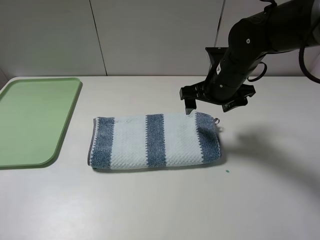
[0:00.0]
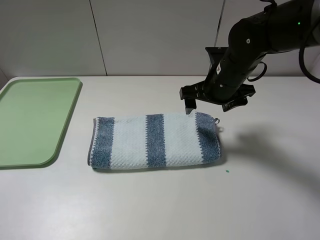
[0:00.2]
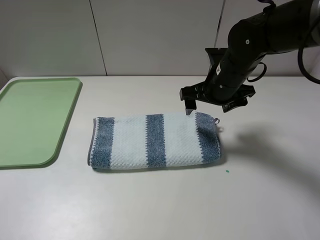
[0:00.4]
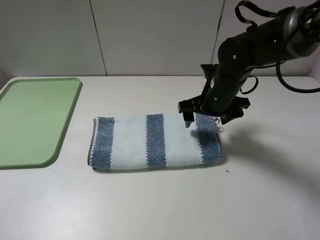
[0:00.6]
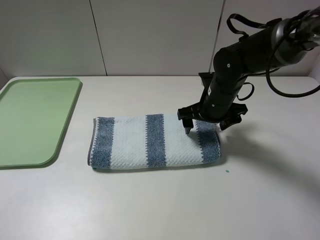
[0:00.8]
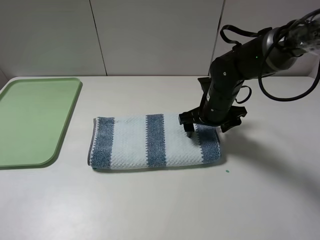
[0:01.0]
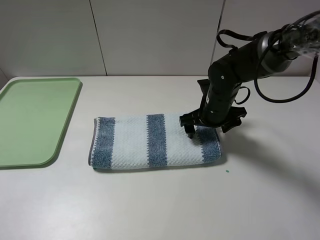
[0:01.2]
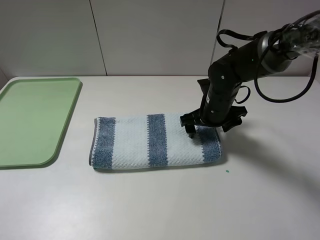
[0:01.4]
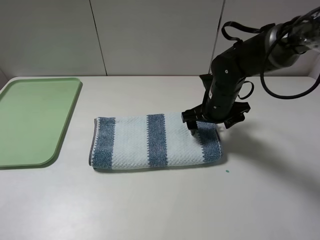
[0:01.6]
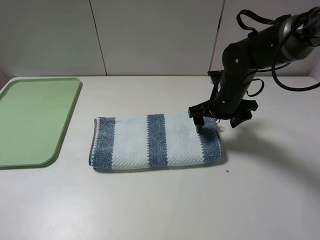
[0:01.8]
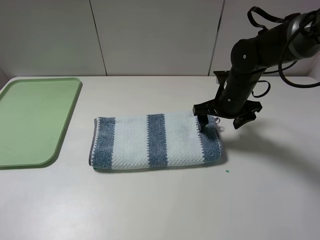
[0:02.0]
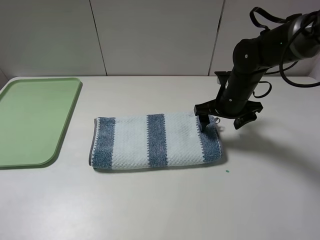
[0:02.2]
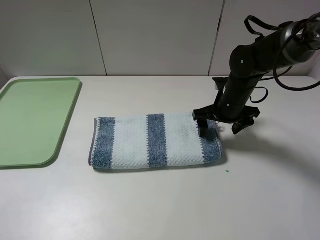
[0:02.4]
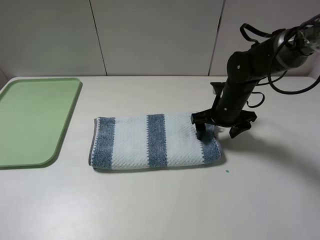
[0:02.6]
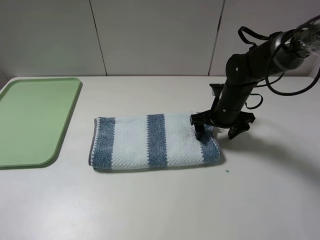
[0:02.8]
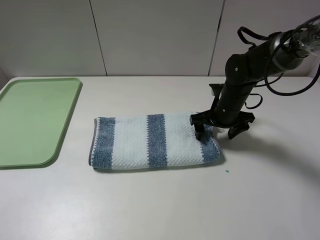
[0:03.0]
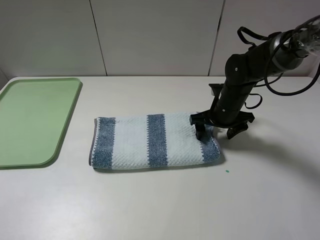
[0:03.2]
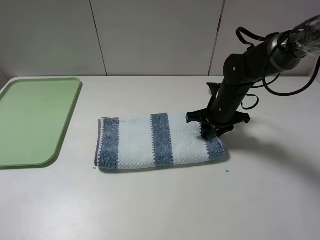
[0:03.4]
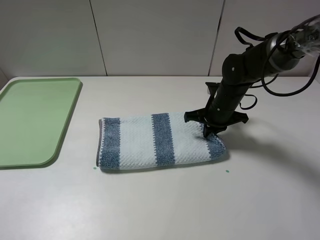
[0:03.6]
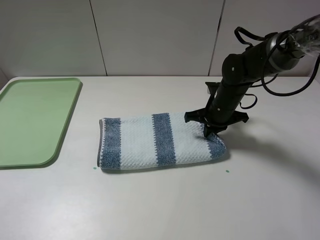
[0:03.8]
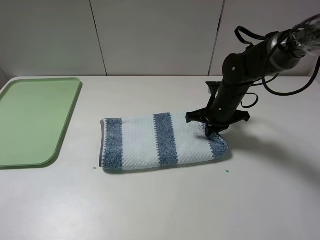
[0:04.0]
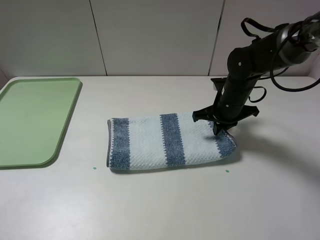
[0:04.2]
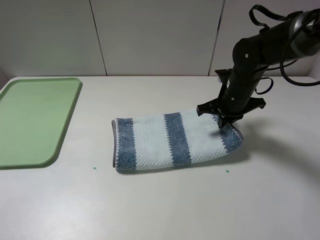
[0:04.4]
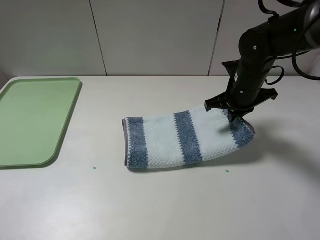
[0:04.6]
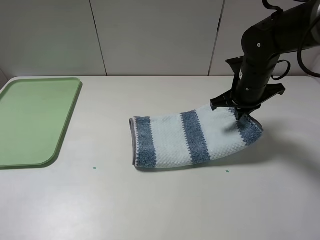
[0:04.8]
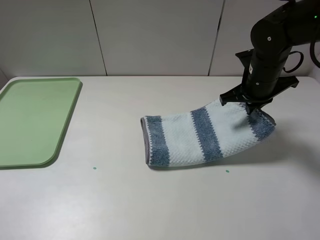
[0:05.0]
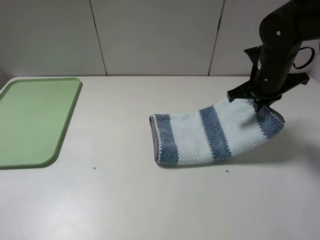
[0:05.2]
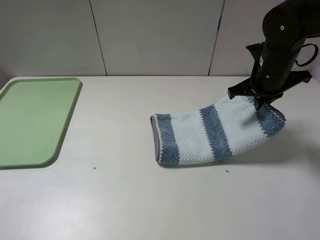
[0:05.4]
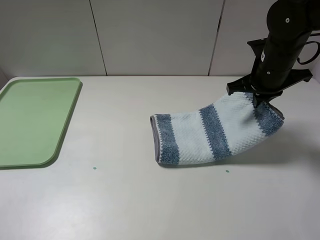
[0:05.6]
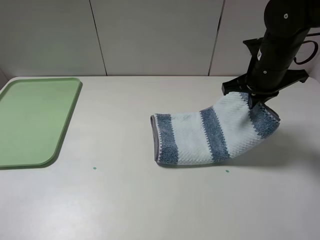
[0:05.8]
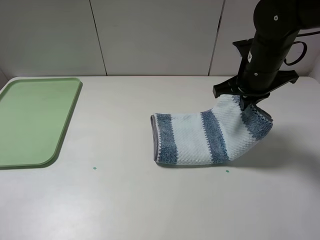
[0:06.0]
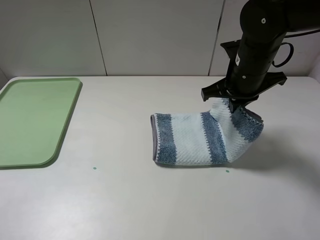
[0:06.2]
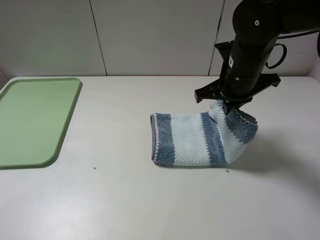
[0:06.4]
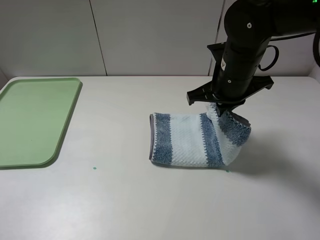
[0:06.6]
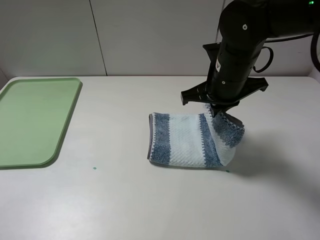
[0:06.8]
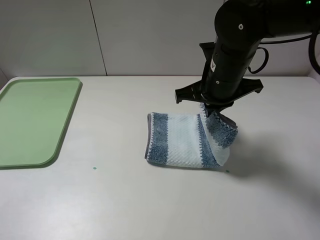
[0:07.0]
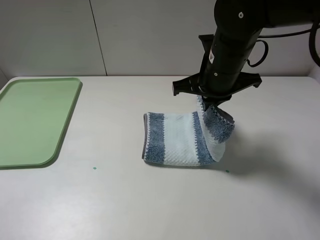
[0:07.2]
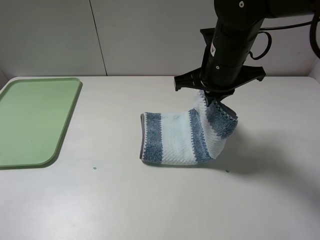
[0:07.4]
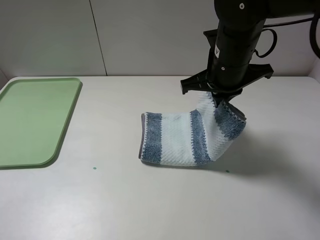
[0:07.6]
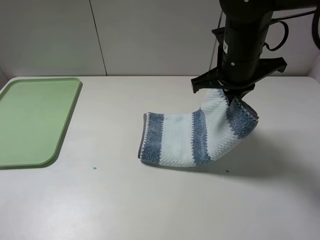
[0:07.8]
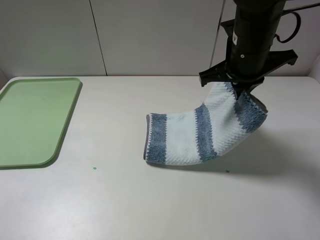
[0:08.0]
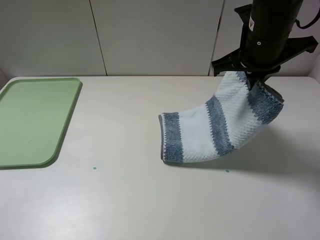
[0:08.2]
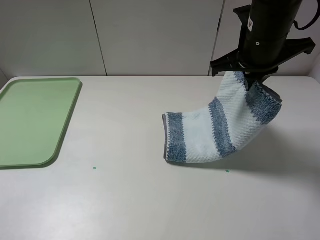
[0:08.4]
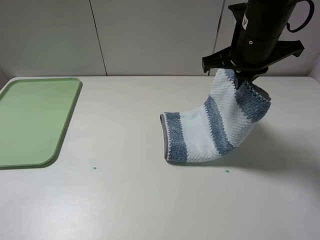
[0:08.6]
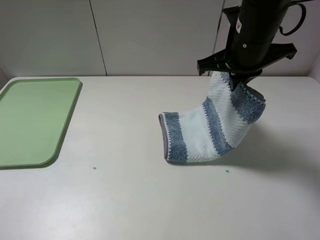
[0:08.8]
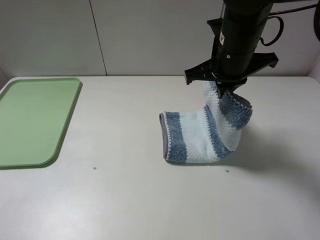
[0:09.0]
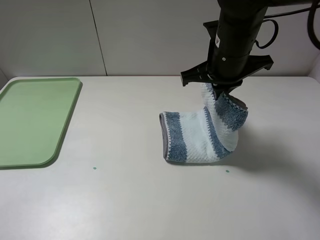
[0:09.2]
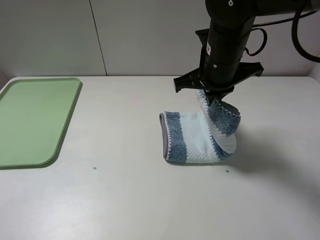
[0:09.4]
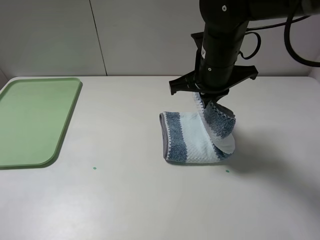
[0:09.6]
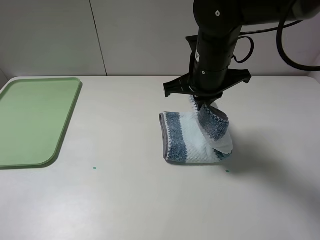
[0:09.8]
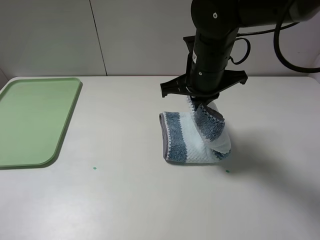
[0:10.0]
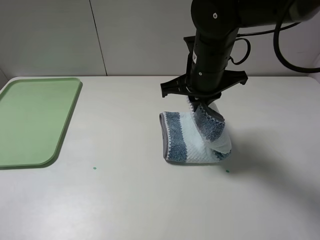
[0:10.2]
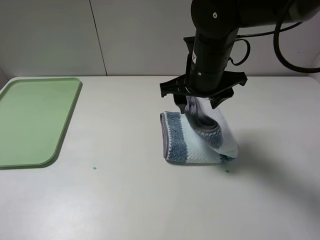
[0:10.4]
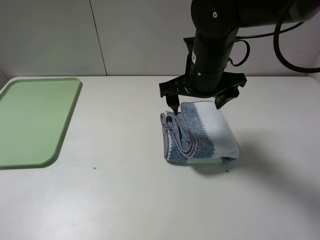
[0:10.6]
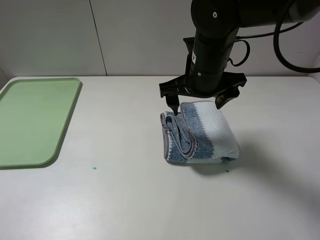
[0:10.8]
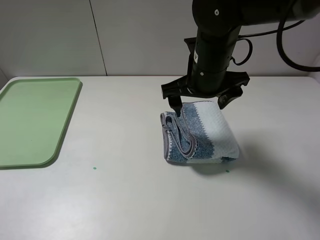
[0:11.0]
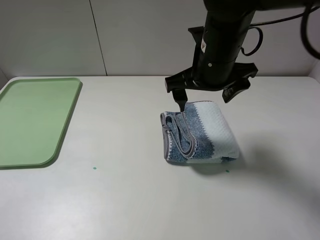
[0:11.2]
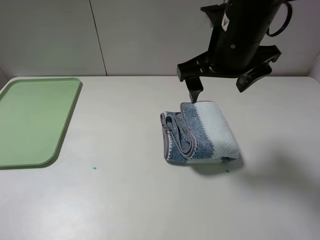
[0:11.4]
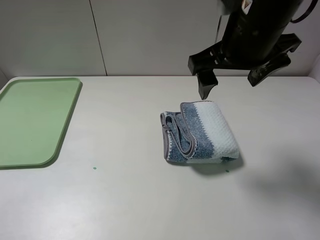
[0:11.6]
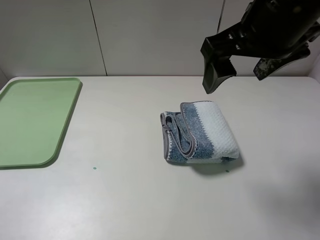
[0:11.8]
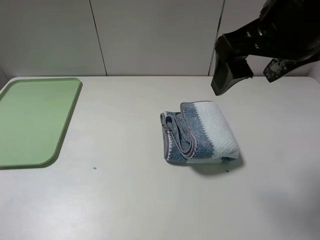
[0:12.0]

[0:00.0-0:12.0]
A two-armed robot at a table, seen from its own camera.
Step, 0:00.0 to 0:04.0: Grasp the blue white towel with the right gripper.
Step, 0:04.2 to 0:11.2: Fold the blue white towel from right to left with right gripper.
0:00.0 to 0:01.6: The right gripper shifts about 5 cm downward.
0:01.6 to 0:03.0: The grippers move only a little.
0:03.0 to 0:04.4: The right gripper closes its fingers.
0:04.4 to 0:06.0: The right gripper heads upward, covering about 5 cm.
0:06.0 to 0:07.6: The right gripper heads to the left, covering about 5 cm.
0:07.6 to 0:09.0: The grippers stay close to where they were, moving slightly.
0:09.0 to 0:10.4: The right gripper opens up.
0:10.4 to 0:12.0: The right gripper heads upward, backward and to the right, covering approximately 15 cm.

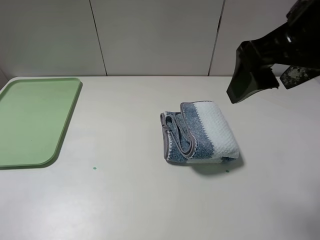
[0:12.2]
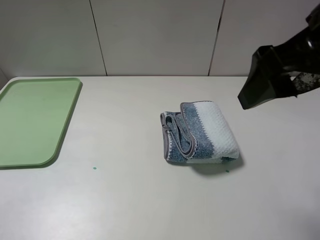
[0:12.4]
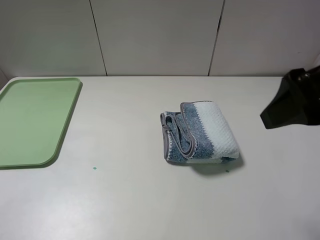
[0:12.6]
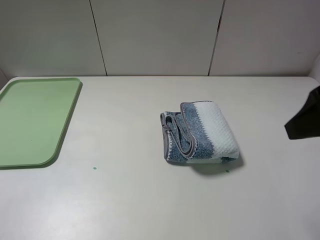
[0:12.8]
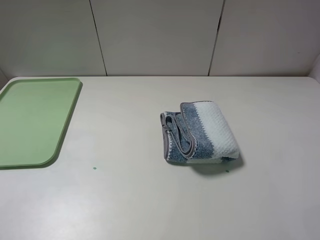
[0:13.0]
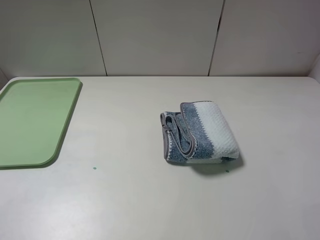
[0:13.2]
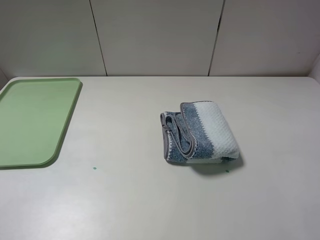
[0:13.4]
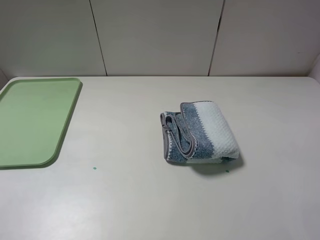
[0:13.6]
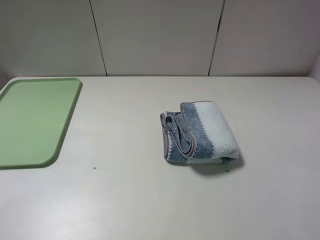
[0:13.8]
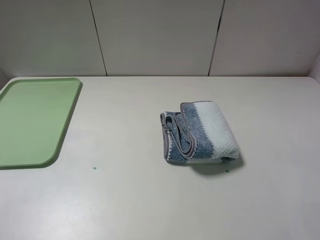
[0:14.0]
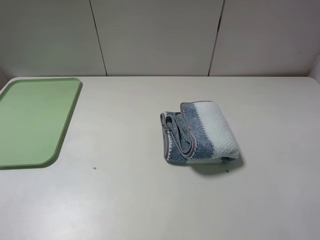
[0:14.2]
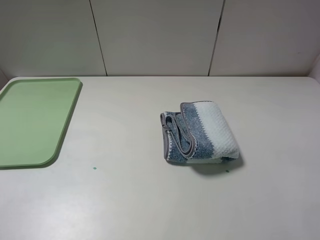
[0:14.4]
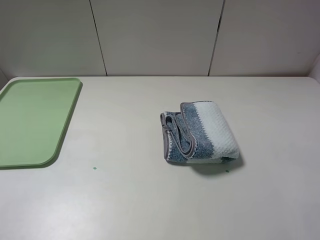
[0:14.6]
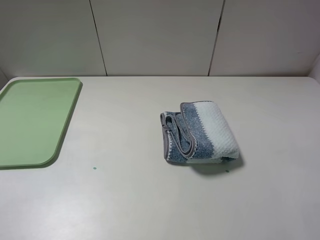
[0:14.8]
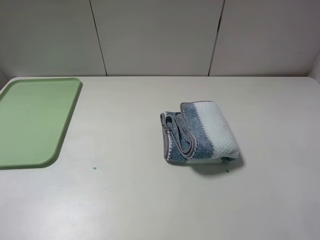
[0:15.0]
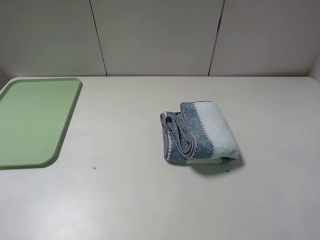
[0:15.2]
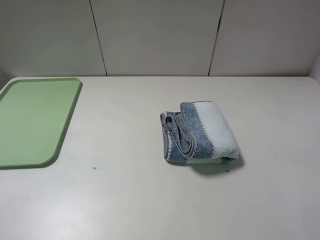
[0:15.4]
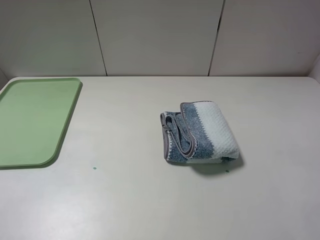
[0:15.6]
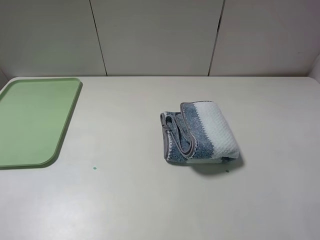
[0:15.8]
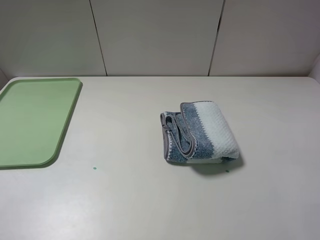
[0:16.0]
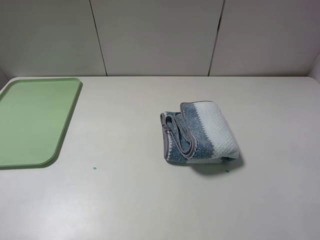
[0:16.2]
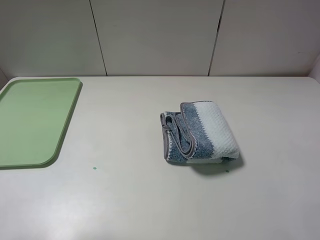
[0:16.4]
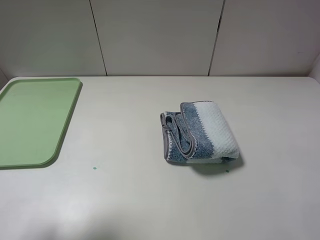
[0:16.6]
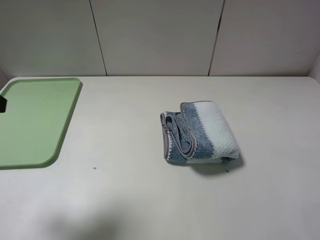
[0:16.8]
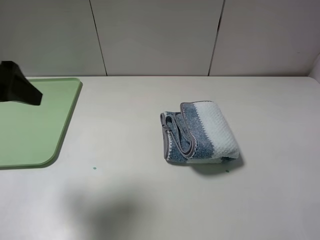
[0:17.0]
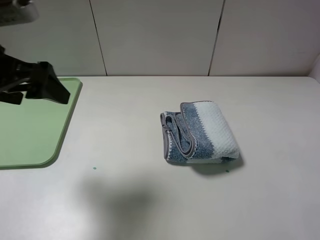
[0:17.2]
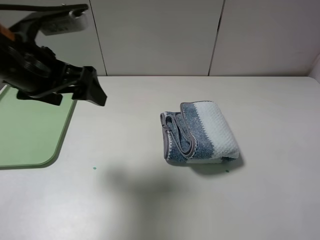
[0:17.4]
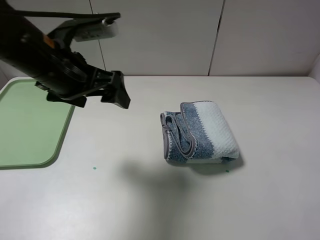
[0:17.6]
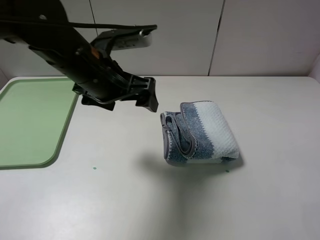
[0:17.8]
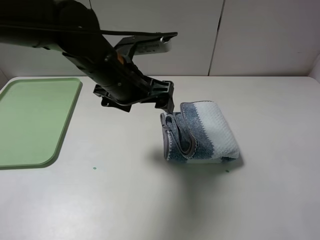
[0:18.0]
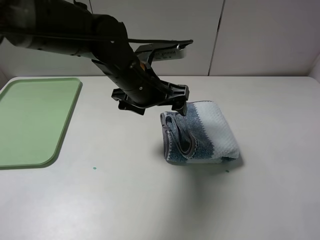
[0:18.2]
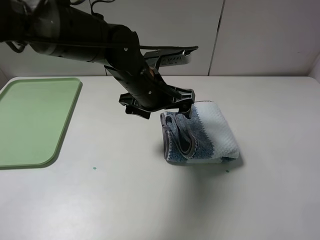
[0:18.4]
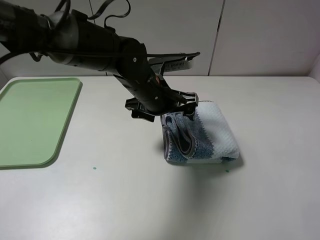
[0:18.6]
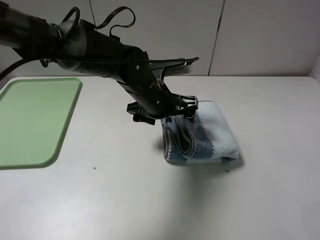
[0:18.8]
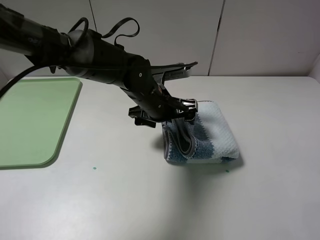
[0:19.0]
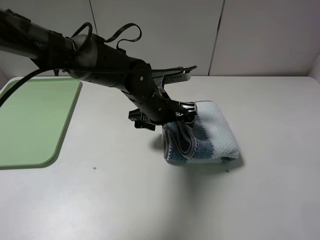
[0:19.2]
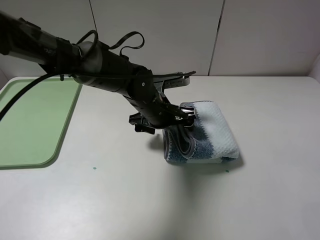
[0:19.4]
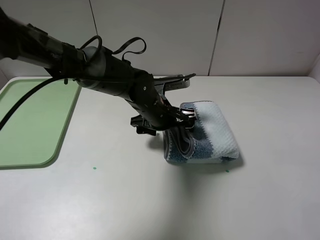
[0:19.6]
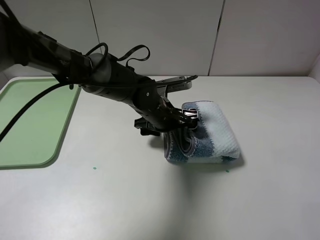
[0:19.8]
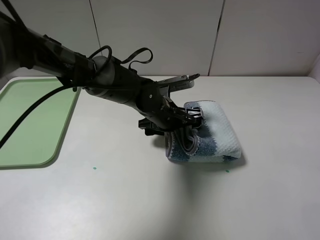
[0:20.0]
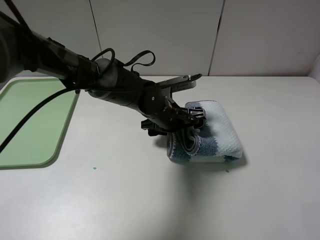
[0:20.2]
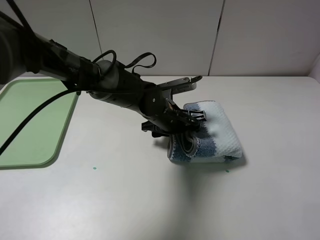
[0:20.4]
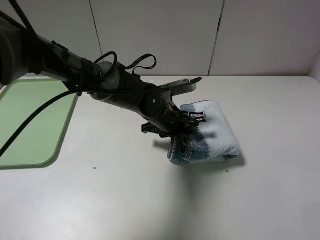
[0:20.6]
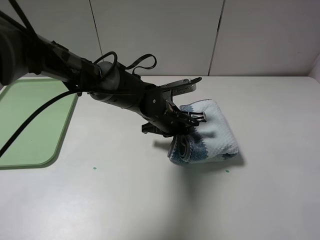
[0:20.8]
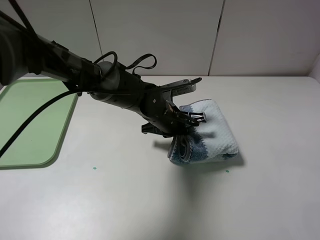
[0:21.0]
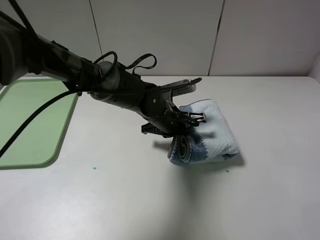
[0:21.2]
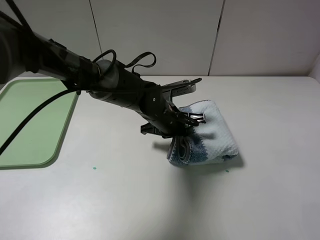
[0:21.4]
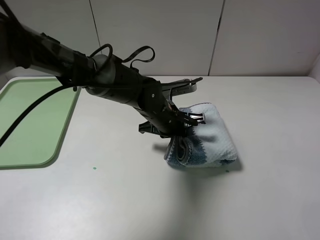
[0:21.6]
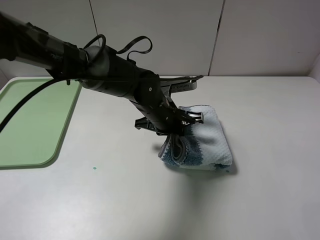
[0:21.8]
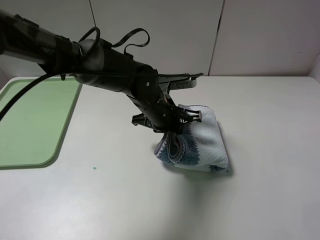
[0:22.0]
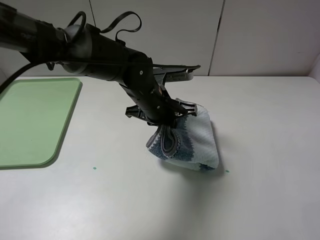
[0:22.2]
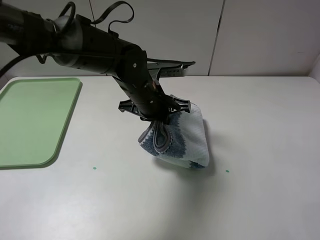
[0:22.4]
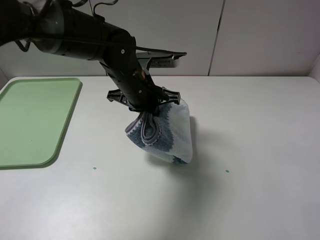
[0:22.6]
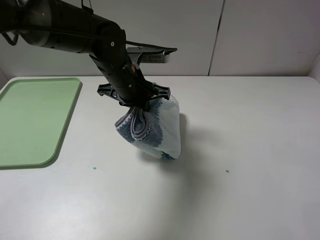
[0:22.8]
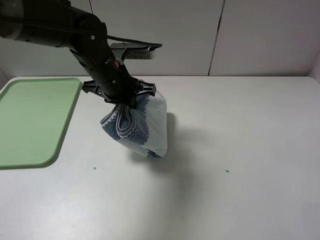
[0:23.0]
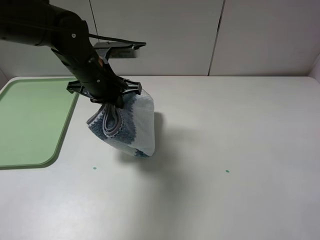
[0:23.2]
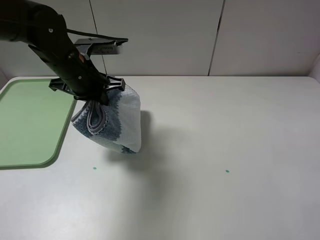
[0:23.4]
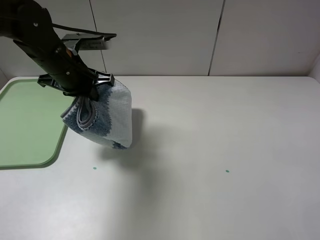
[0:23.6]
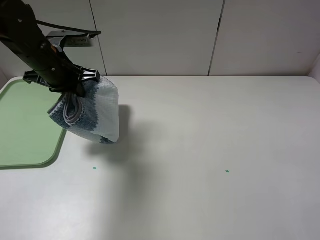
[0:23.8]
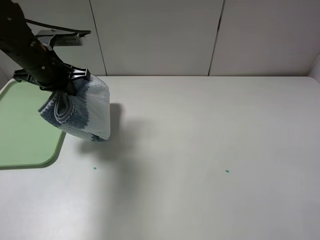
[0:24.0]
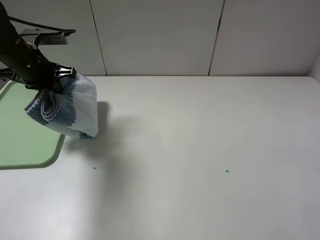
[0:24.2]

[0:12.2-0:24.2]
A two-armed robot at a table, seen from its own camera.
Step, 0:12.2 to 0:20.6: Grasp the blue white towel with the left gripper.
0:12.2 to 0:13.8: The right gripper goes roughly 25 cm backward, to the right and downward.
0:13.8 to 0:15.2: The two grippers keep their place.
0:15.2 to 0:16.6: The left gripper is displaced forward by approximately 15 cm.
0:16.6 to 0:18.2: The left gripper goes some 35 cm to the right, forward and downward.
0:18.2 to 0:19.8: The left gripper goes some 10 cm downward.
0:19.8 to 0:21.2: The left gripper closes its fingers.
0:21.2 to 0:22.6: The left gripper travels upward and to the left by about 10 cm.
0:22.6 to 0:24.2: The left gripper goes some 25 cm to the left.
